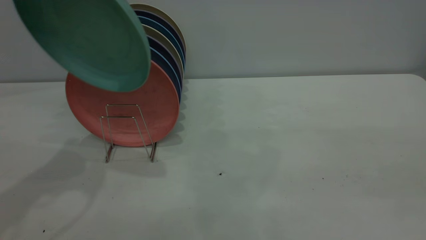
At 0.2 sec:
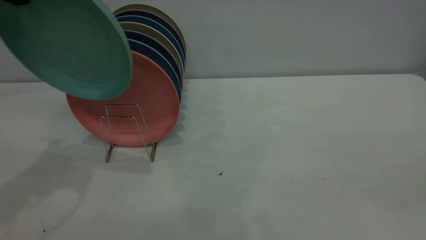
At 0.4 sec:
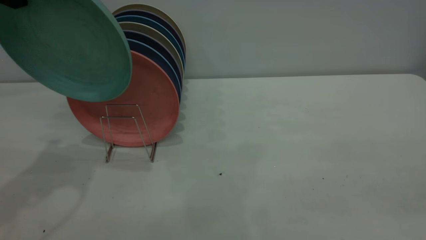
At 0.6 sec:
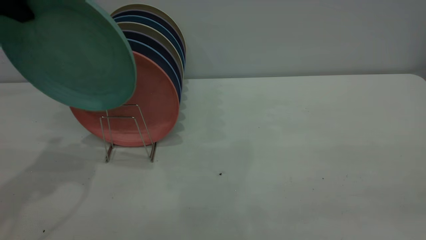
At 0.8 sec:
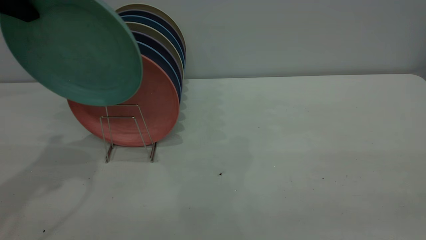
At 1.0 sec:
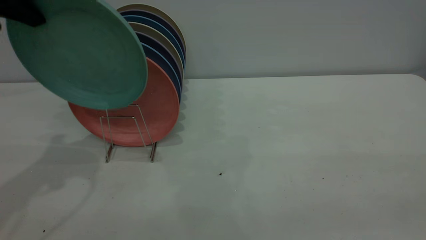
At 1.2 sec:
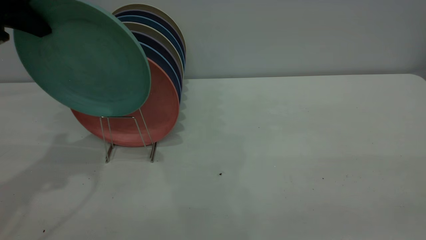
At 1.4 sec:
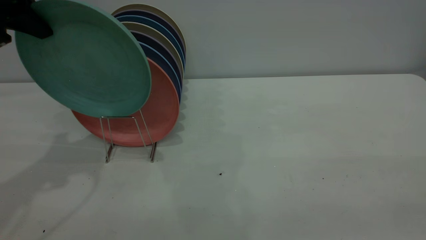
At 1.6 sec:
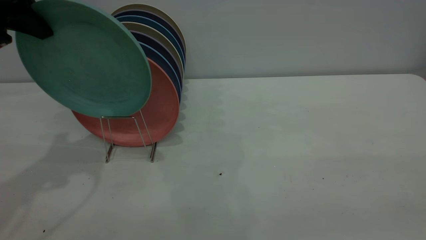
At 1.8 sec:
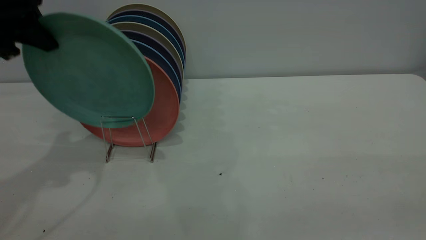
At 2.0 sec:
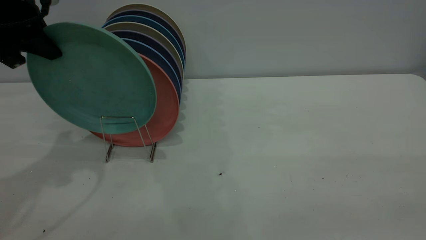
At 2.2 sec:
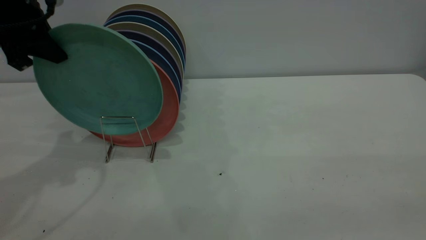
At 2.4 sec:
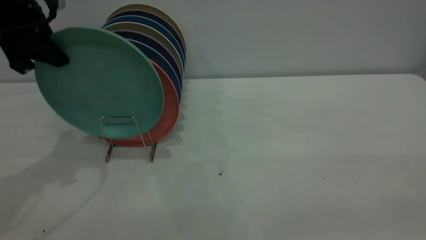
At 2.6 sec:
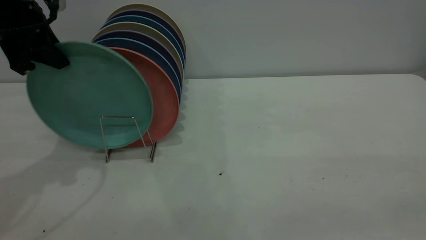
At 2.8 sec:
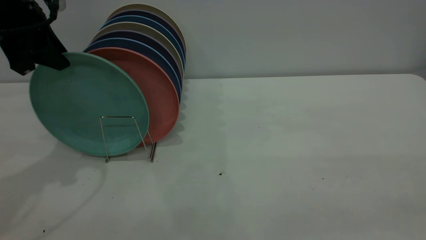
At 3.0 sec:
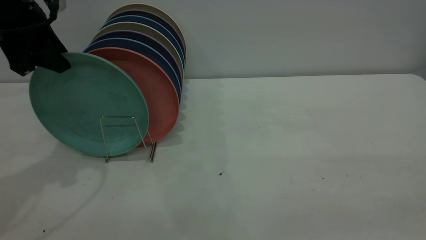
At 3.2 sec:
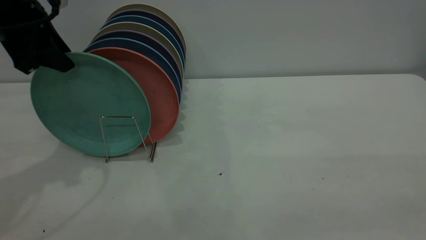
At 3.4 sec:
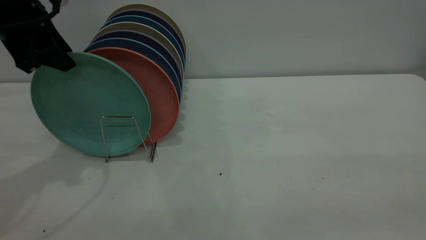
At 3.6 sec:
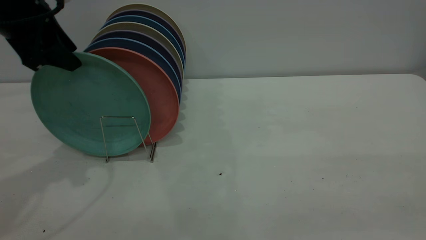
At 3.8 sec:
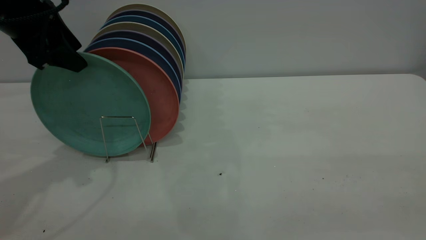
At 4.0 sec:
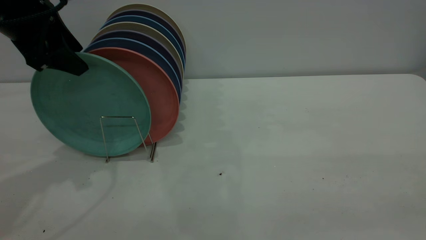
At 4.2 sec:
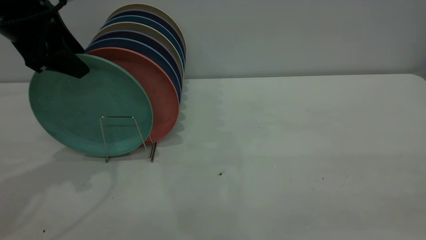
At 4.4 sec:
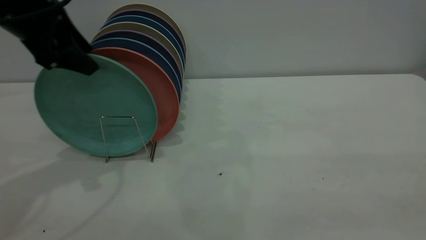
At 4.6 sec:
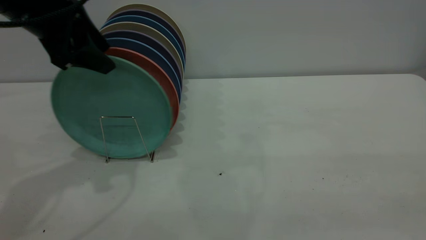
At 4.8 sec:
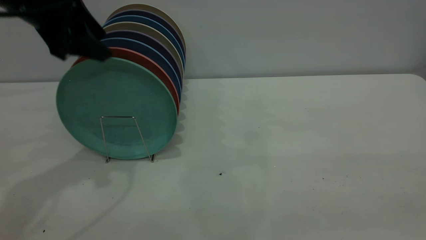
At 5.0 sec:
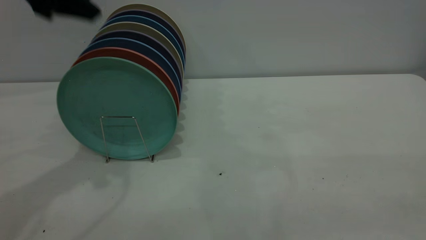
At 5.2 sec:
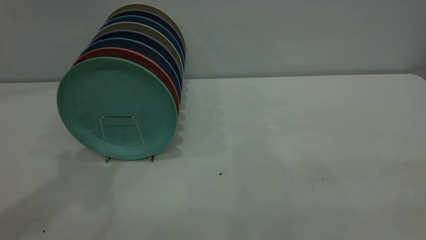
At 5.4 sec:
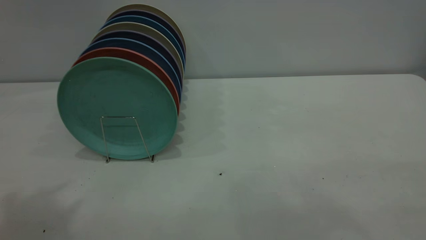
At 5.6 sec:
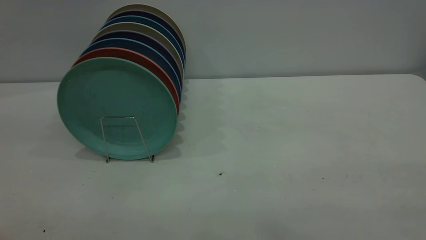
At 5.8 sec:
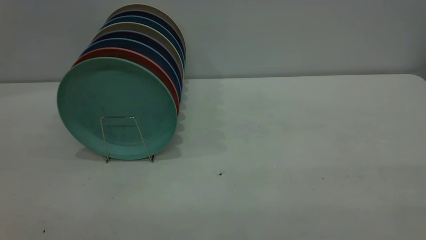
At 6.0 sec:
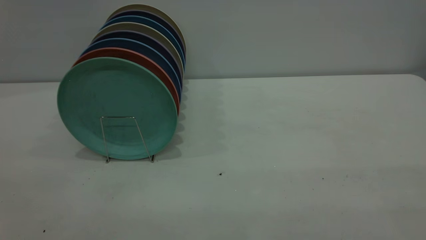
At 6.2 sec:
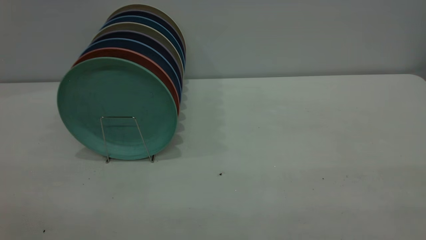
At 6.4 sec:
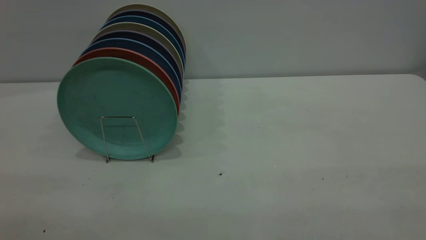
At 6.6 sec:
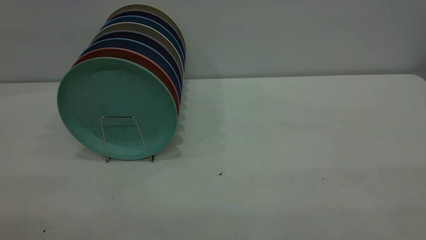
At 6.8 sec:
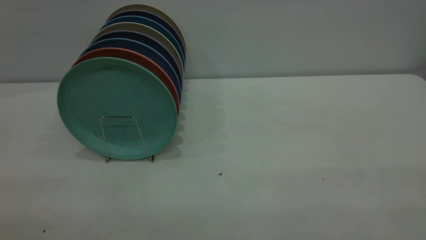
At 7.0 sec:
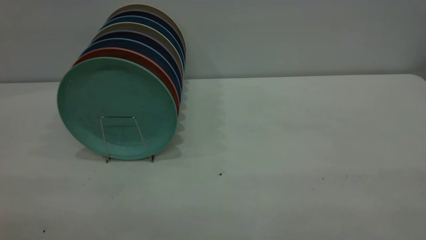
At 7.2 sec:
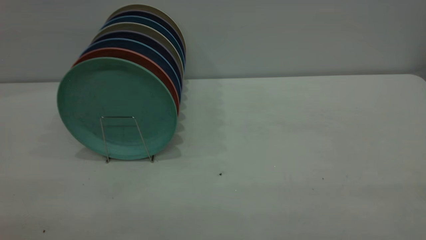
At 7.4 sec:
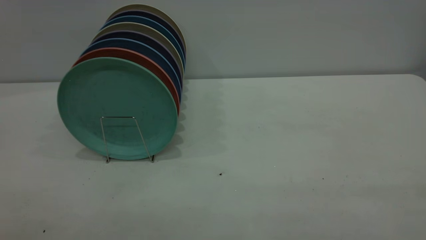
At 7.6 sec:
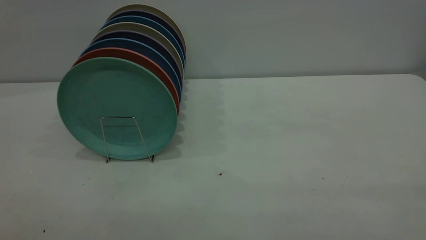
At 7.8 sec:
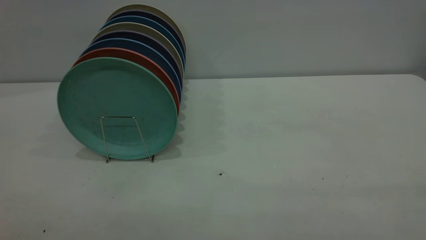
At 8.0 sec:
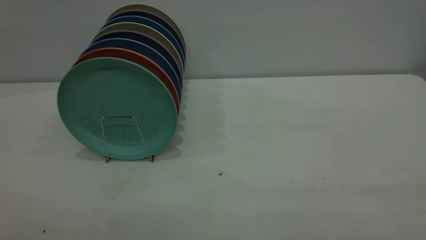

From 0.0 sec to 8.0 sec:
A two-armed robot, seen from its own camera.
Task of the whole recording: the right gripper grasp the green plate, the right gripper pass the green plate to the left gripper, and the left gripper place the green plate on the plate rack.
Step, from 0.0 sec to 4.8 sec: Place the plate on the shelf.
From 0.0 sec to 1.6 sec: The left gripper travels downward by some 5 cm.
From 1.6 sec to 3.2 sec: The left gripper opens its fingers.
From 3.2 sec to 4.8 sec: The left gripper ends up some 5 cm from where it was, and opens its fingers.
From 4.8 sec to 6.4 sec: The left gripper shifts about 35 cm backward.
